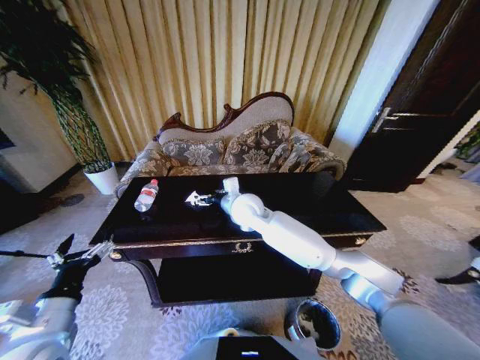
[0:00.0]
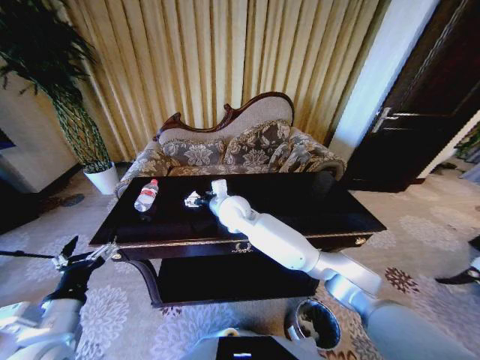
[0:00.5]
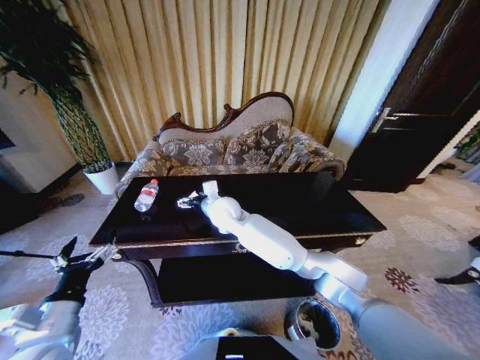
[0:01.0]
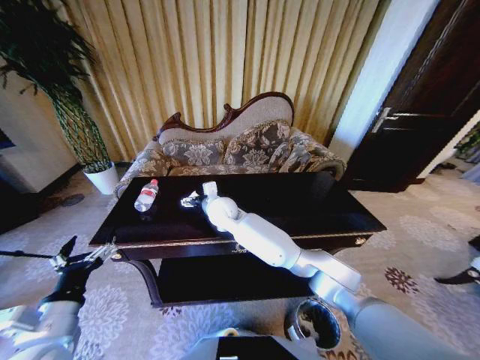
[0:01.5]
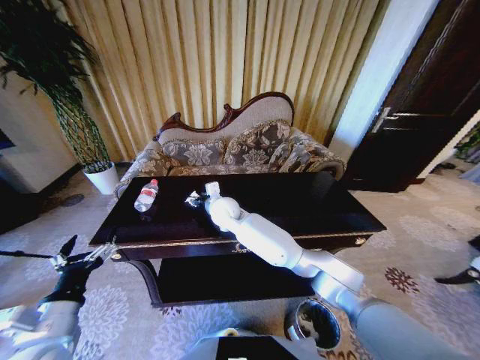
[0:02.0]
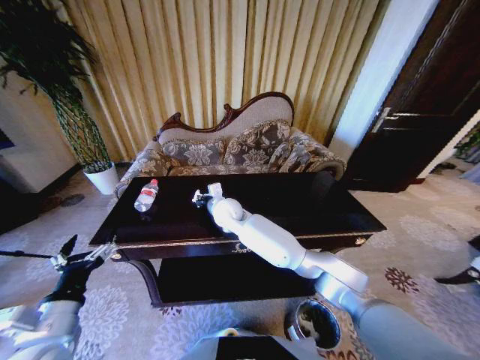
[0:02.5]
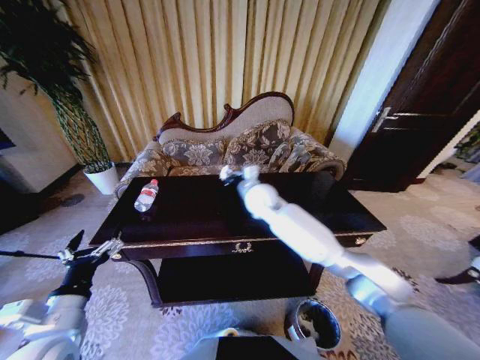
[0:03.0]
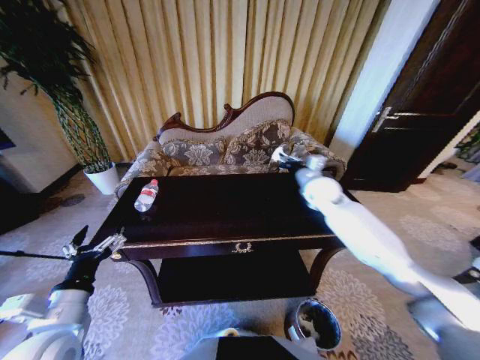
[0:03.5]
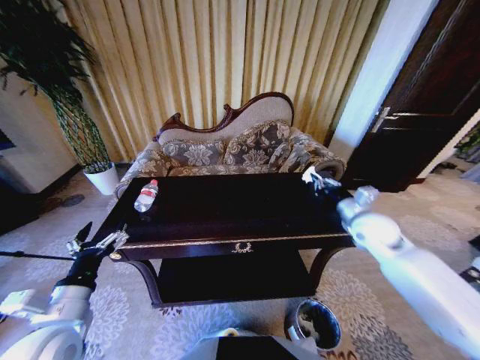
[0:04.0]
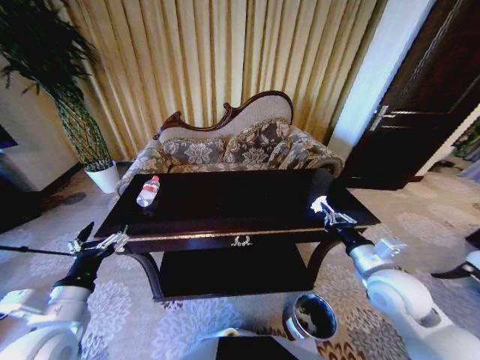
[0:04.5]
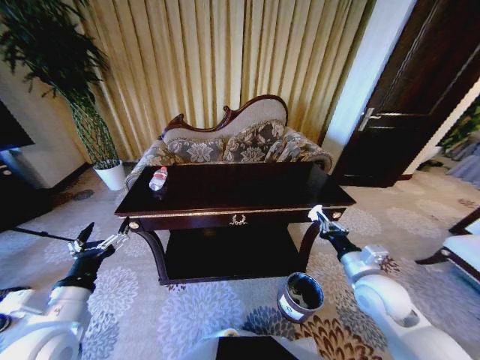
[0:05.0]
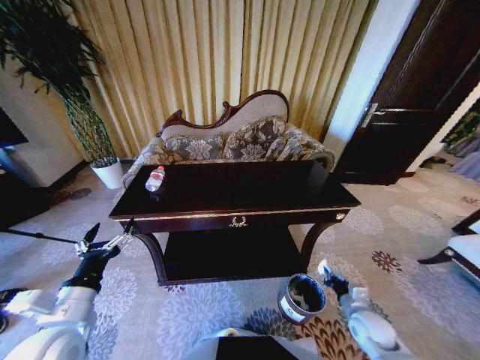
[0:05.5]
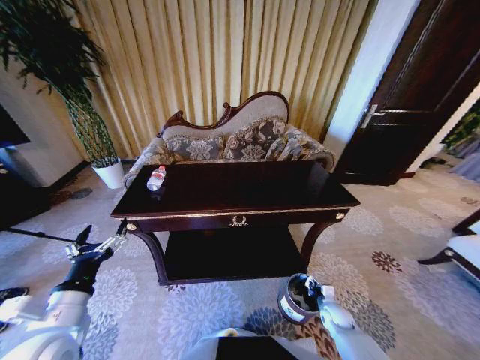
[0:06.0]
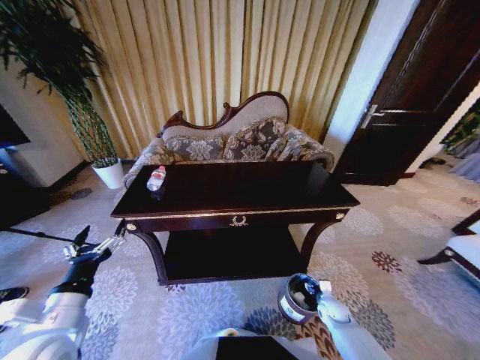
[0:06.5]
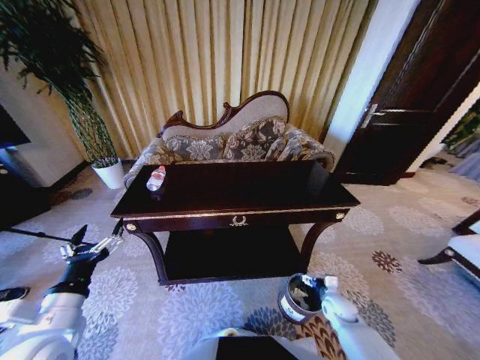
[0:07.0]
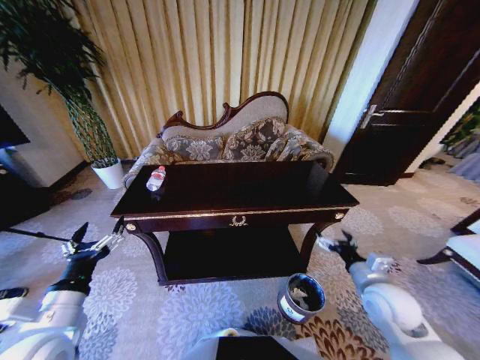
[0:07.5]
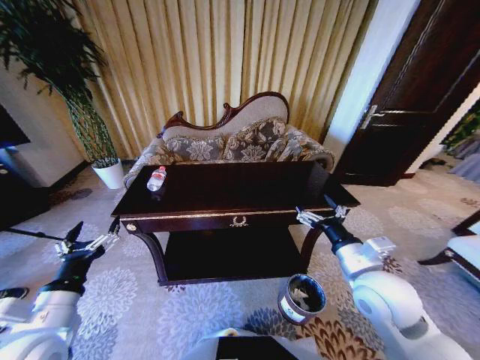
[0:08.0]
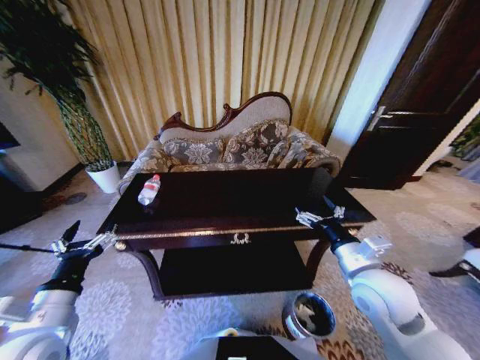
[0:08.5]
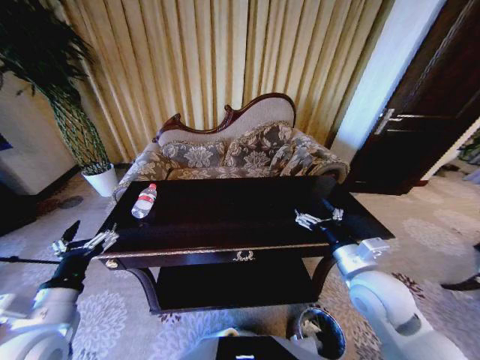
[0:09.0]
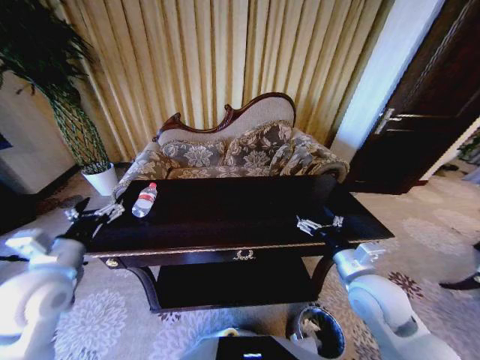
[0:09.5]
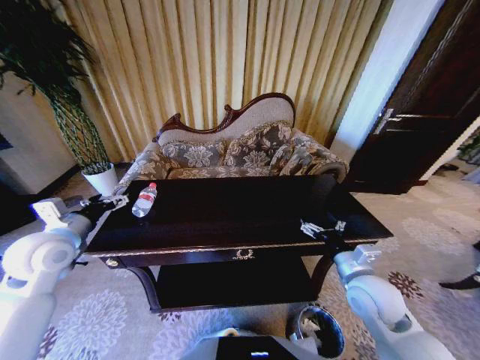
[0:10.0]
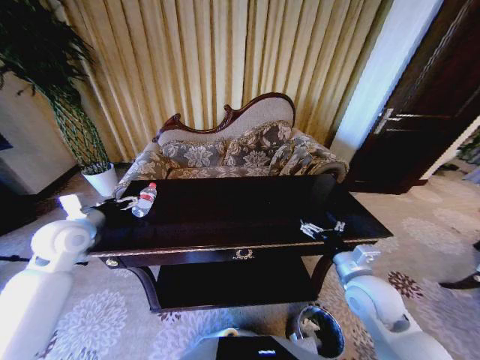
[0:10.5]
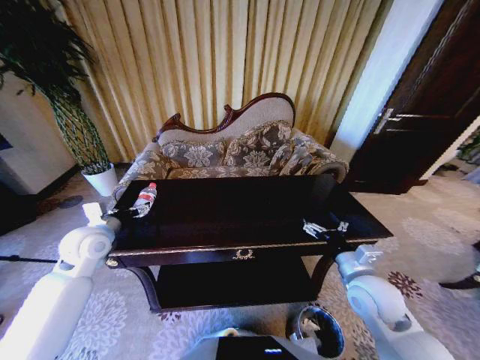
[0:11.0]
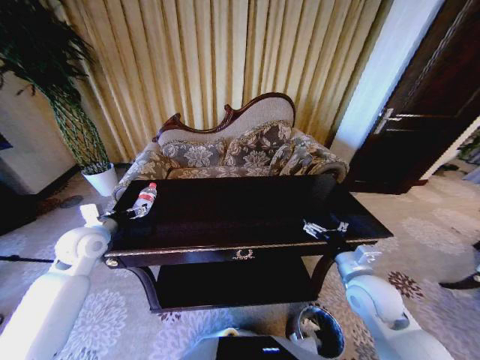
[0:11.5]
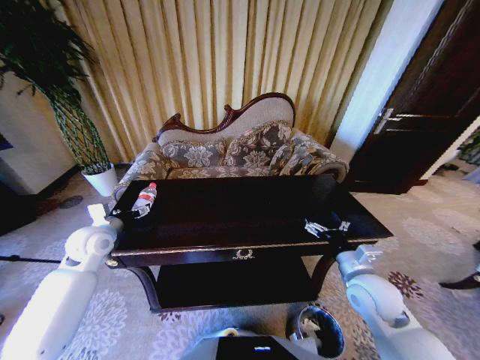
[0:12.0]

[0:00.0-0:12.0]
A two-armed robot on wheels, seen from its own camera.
Task of the whole recording: Move to the front of the table and place the trash on the table into the trash bin.
0:00.0 to 0:02.0: The right gripper is displaced to the left by roughly 5 cm, and closes.
0:02.0 to 0:04.0: The right gripper shifts about 40 cm to the right, and closes.
0:04.0 to 0:06.0: The right gripper shifts some 35 cm downward.
0:06.0 to 0:08.0: The right gripper moves upward, some 35 cm, and opens its fingers.
0:08.0 to 0:10.0: The right gripper travels downward by roughly 5 cm; the left gripper moves forward, approximately 15 cm.
0:10.0 to 0:12.0: The left gripper travels downward and forward by approximately 10 cm.

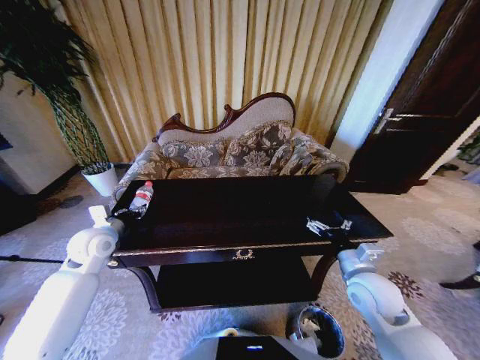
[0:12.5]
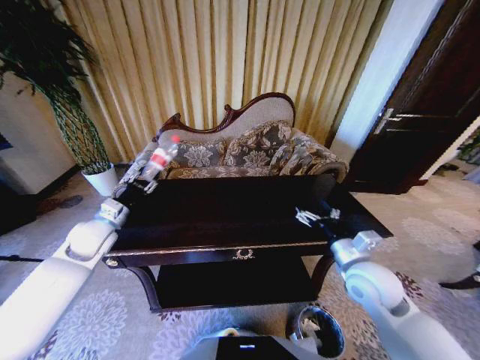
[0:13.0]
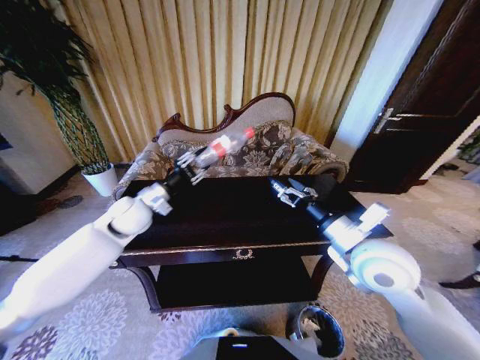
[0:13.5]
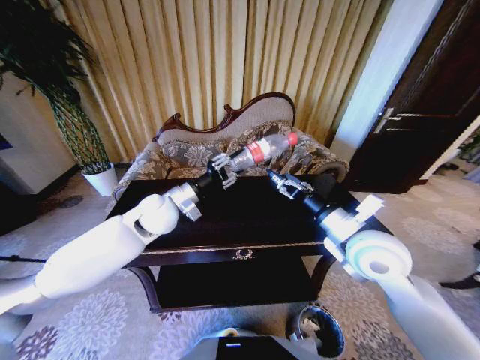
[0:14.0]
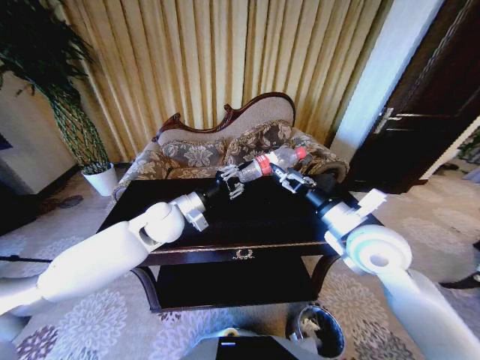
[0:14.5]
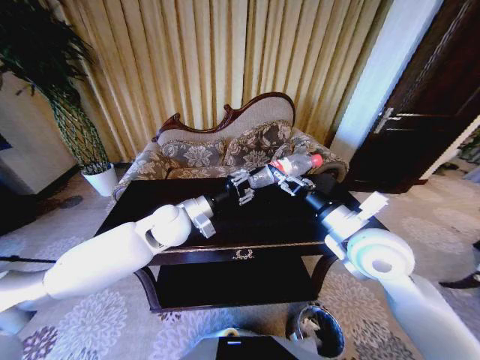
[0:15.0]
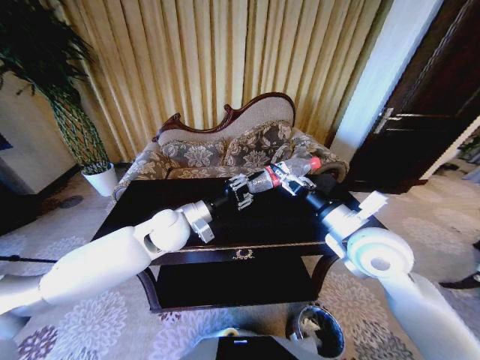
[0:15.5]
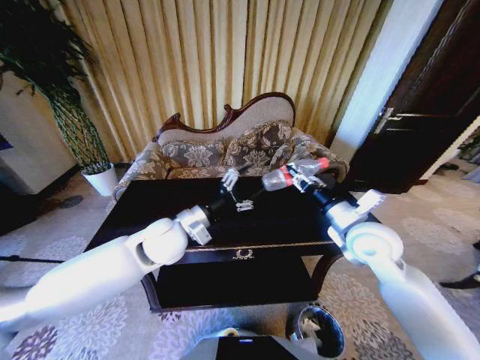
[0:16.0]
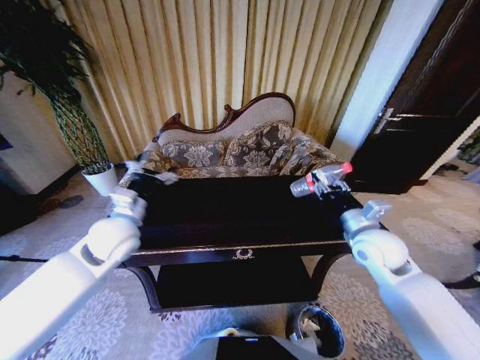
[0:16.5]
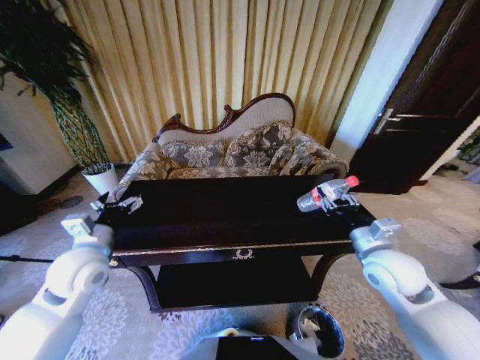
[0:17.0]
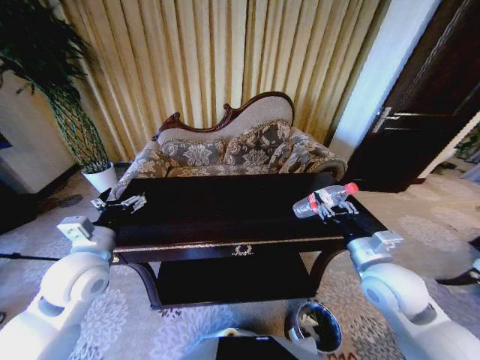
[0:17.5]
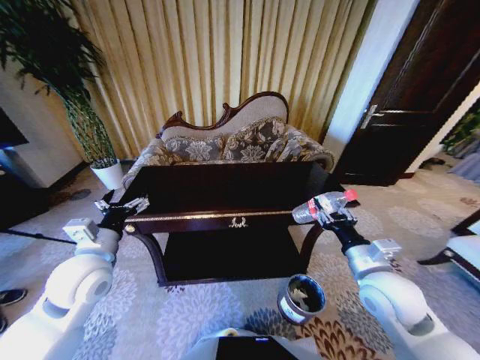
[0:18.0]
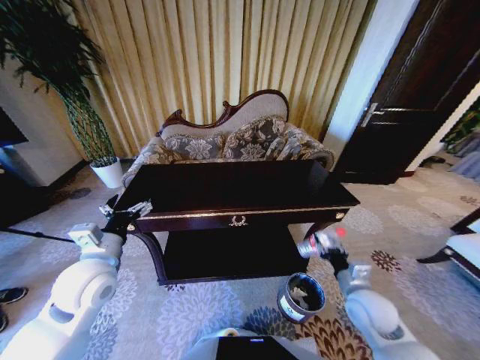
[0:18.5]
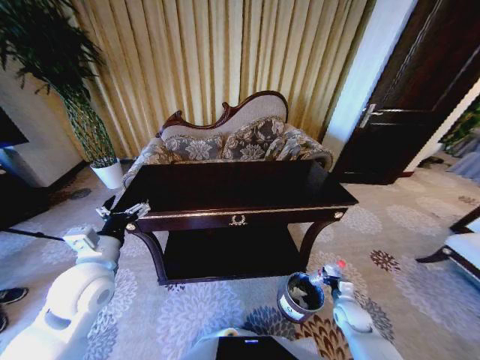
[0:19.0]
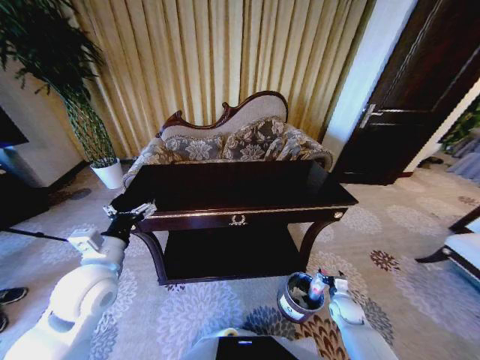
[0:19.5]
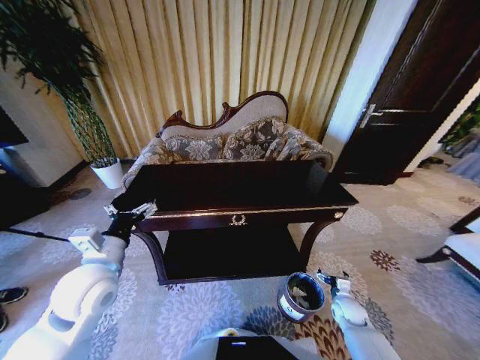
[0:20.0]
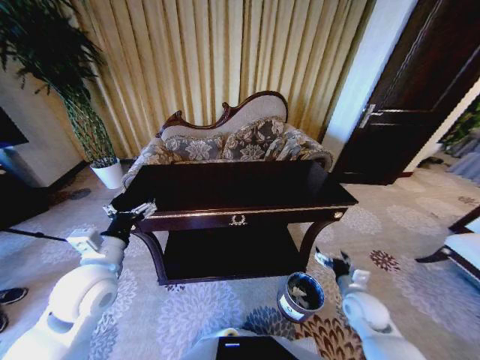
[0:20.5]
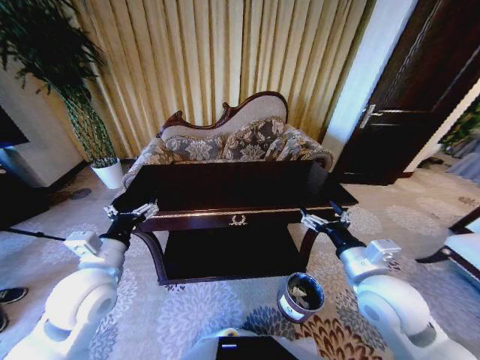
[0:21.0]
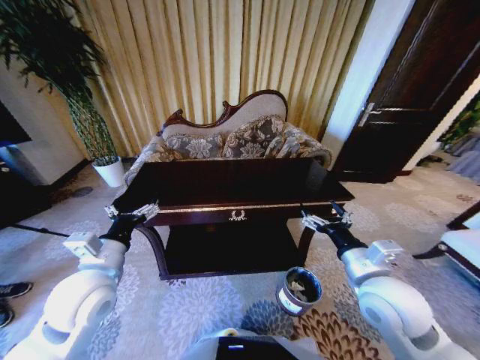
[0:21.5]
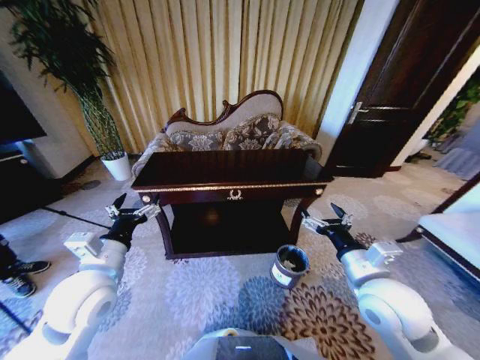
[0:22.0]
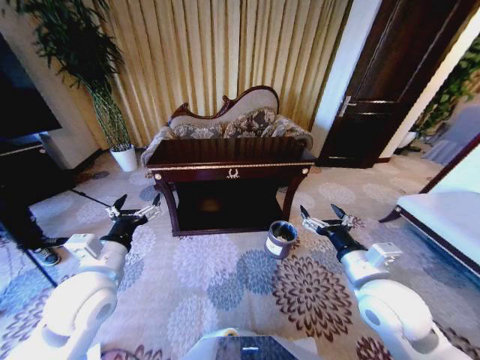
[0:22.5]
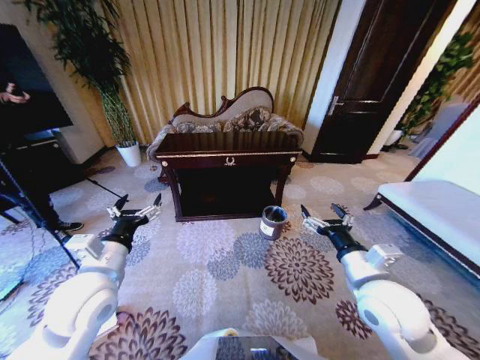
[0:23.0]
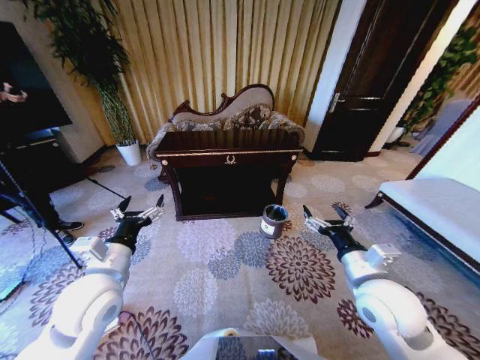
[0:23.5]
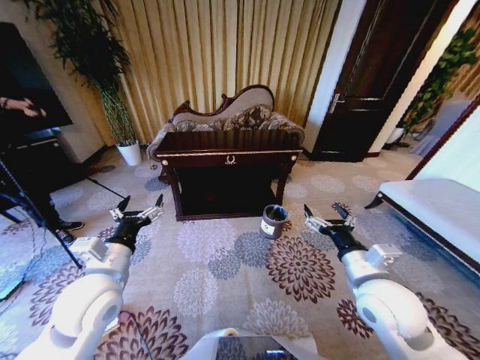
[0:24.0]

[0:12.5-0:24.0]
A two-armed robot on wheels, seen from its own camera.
Task of the whole recording: Move to the front of the table and place the trash on the table into the trash bin.
0:12.5 to 0:14.5: The right gripper moves upward, approximately 15 cm; the left gripper shifts about 20 cm to the right.
0:14.5 to 0:16.5: The left gripper is displaced to the left by roughly 10 cm, and opens up. The right gripper heads to the right and downward, covering roughly 10 cm, and closes its fingers.
0:16.5 to 0:18.5: The left gripper travels backward by about 10 cm; the right gripper is displaced downward and backward by roughly 20 cm.
0:18.5 to 0:20.0: The right gripper travels downward by about 20 cm, and opens up.
0:20.0 to 0:22.0: The right gripper is displaced upward by approximately 35 cm.
